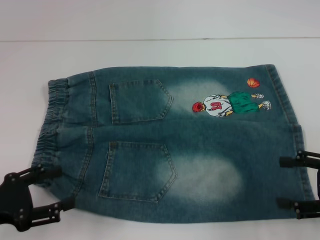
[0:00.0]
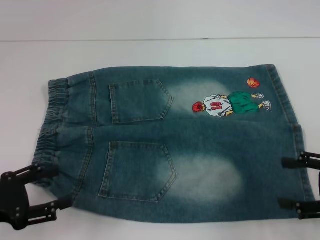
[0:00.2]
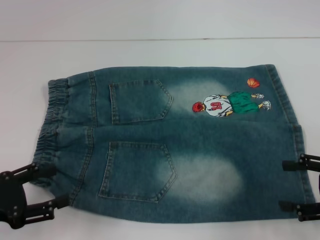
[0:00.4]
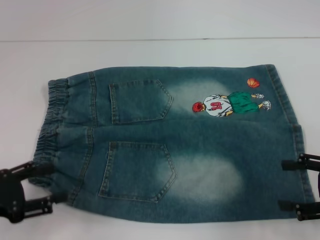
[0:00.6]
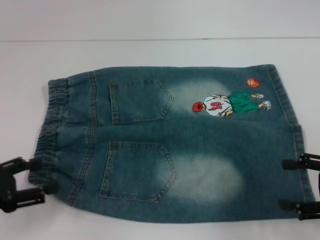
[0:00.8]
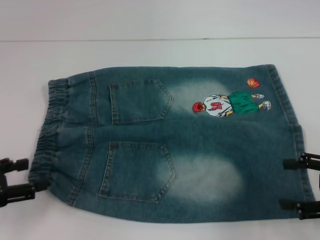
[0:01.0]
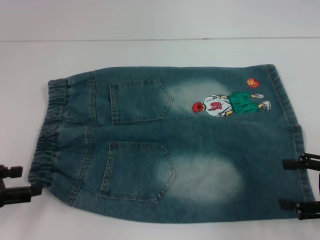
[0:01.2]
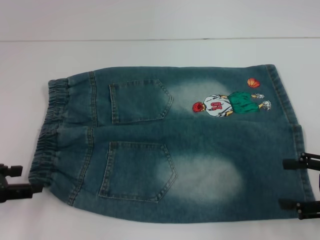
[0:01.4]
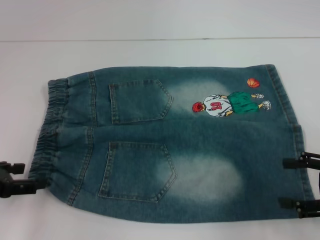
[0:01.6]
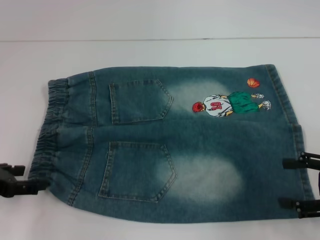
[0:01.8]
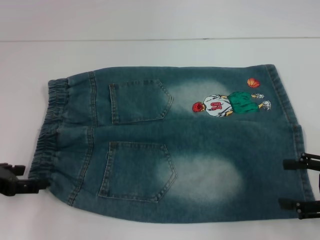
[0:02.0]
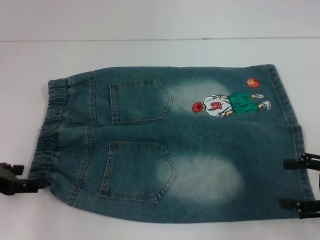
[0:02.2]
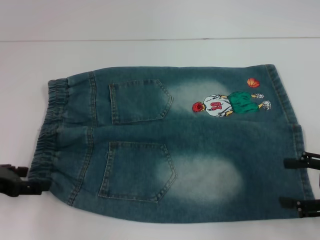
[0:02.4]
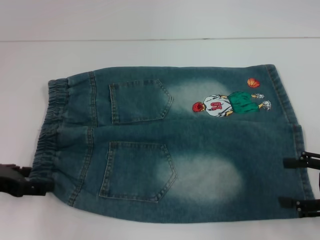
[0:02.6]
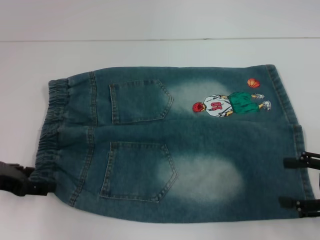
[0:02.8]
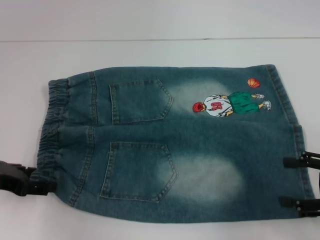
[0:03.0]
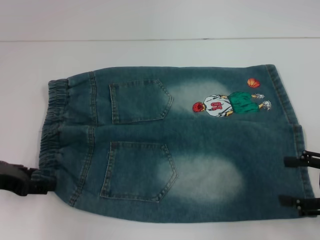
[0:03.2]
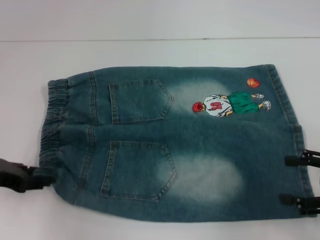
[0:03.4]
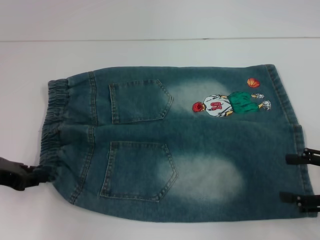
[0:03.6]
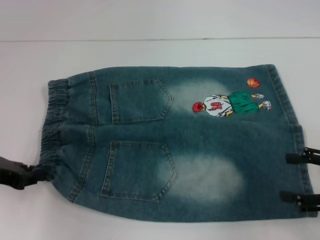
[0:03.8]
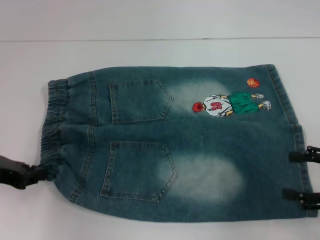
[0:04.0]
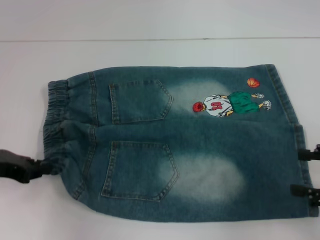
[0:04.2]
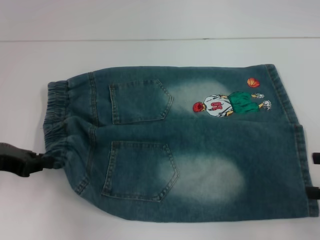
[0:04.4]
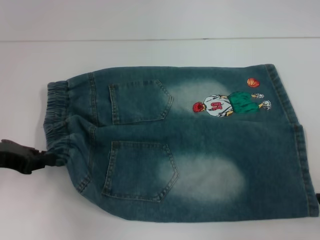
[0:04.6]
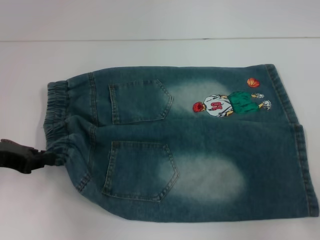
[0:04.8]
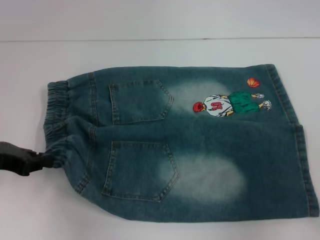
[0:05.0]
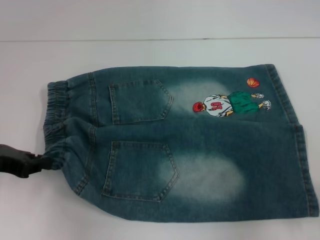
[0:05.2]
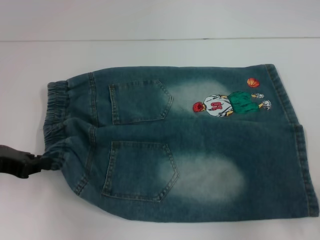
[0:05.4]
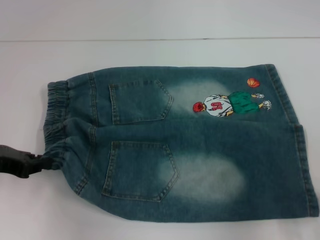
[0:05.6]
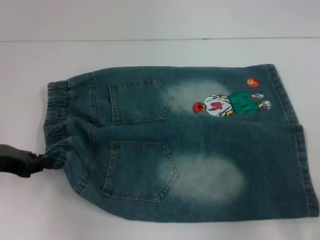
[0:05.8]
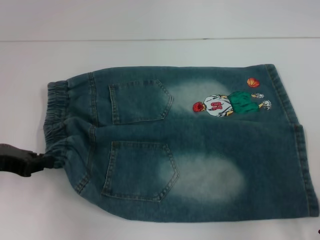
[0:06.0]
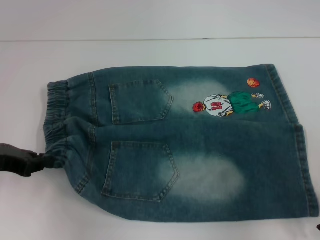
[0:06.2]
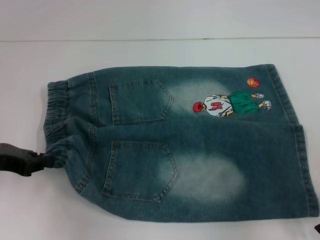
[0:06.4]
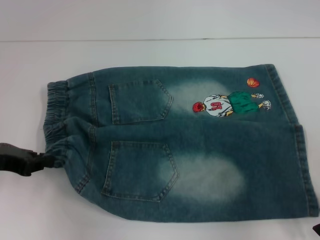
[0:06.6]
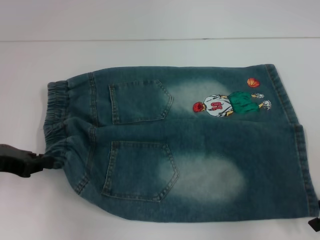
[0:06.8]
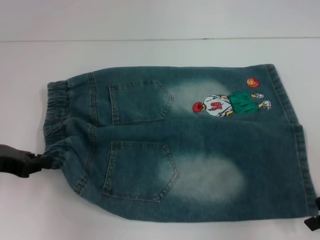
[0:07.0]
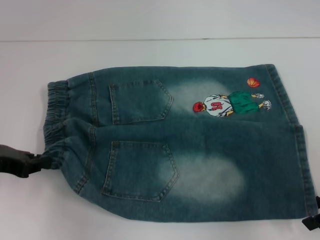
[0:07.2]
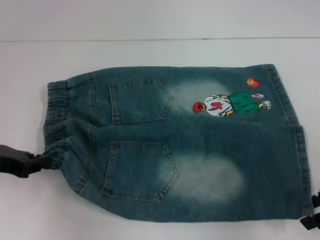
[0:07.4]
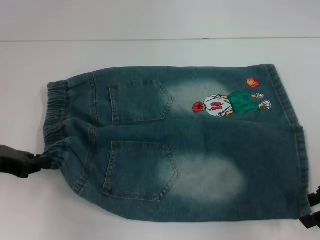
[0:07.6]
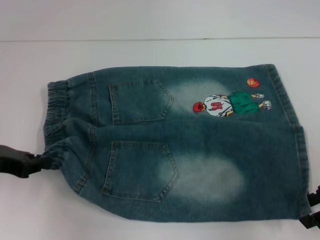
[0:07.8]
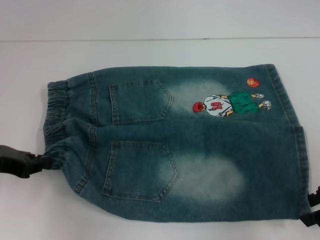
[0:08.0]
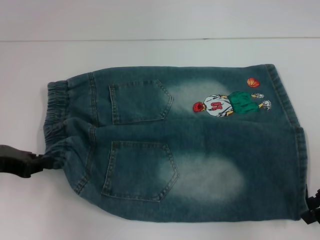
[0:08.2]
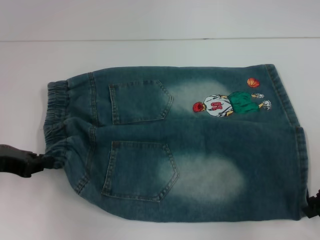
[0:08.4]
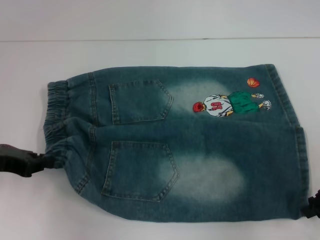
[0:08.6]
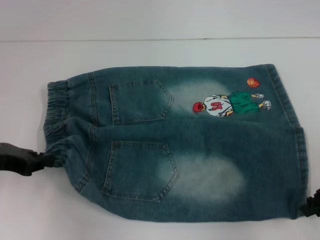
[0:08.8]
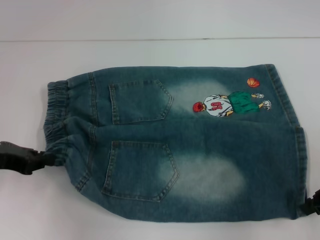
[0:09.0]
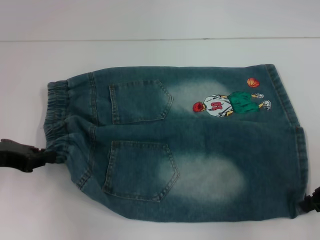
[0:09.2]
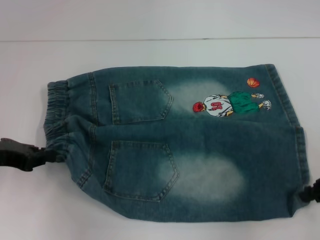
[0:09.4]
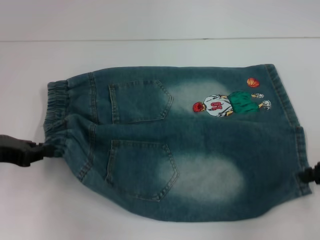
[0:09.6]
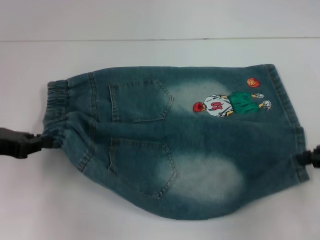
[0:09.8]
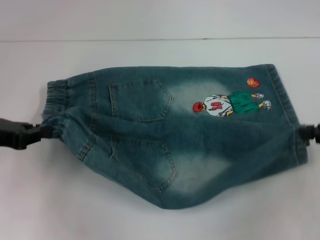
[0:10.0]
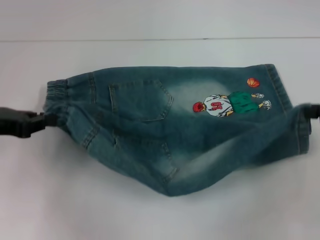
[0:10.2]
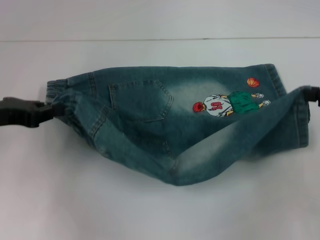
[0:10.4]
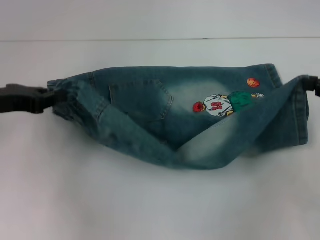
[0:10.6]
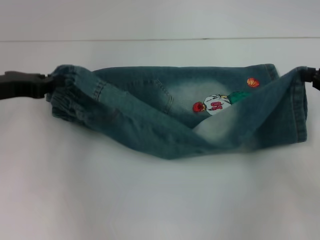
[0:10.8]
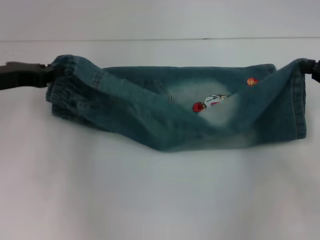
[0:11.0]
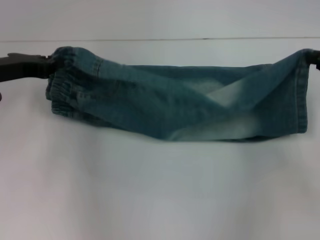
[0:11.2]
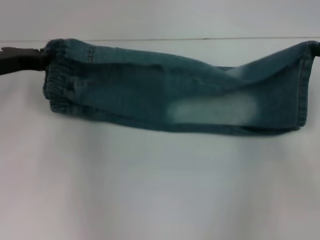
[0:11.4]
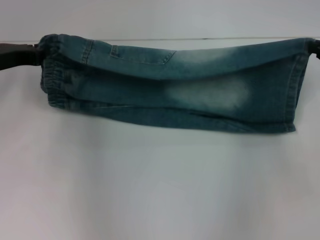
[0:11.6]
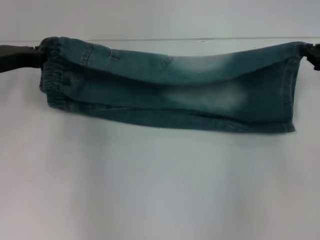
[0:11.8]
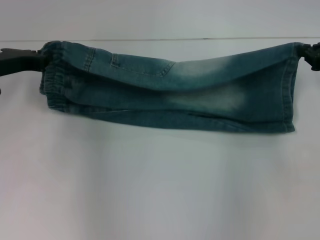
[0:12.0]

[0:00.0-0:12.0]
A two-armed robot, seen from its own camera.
Step, 0:00.0 to 0:03.8: Hold the lower left waistband with your left hand.
Step, 0:04.0 to 0:09.0: Grab the lower right pant leg with your right hand.
0:00.0 to 0:01.6: The left gripper moves roughly 5 cm.
0:01.6 to 0:03.0: The grippers make only small movements.
0:03.0 to 0:04.4: The left gripper closes its fingers.
0:06.0 to 0:07.6: The grippers make only small movements.
0:07.6 to 0:09.0: The right gripper closes its fingers.
0:09.0 to 0:10.4: The right gripper moves upward, roughly 5 cm.
0:10.4 to 0:12.0: The two grippers go roughly 10 cm forward.

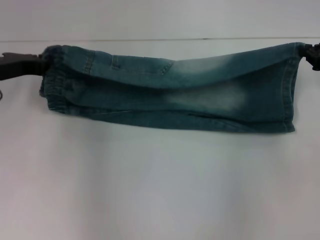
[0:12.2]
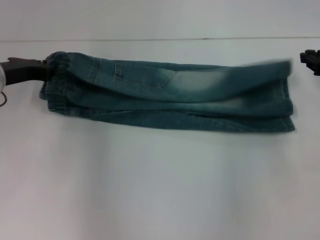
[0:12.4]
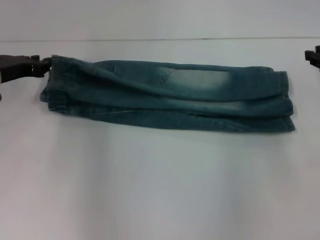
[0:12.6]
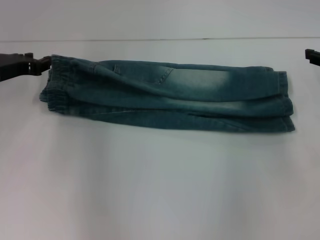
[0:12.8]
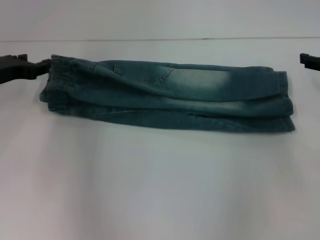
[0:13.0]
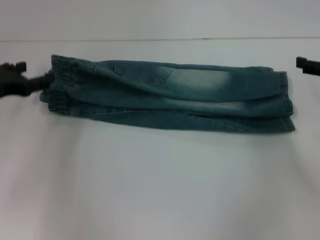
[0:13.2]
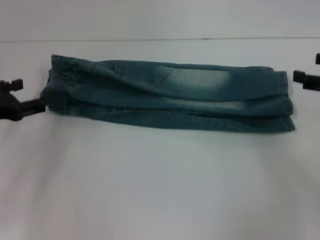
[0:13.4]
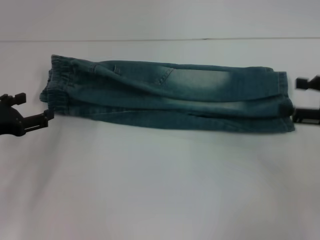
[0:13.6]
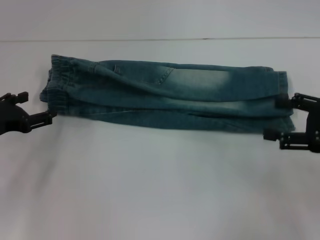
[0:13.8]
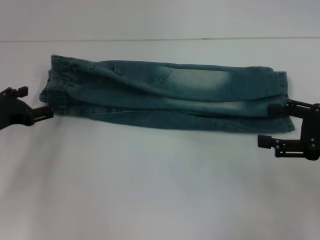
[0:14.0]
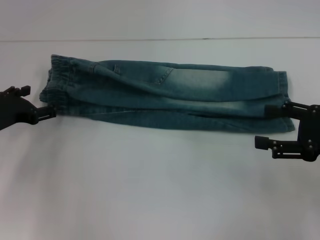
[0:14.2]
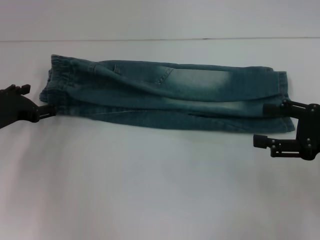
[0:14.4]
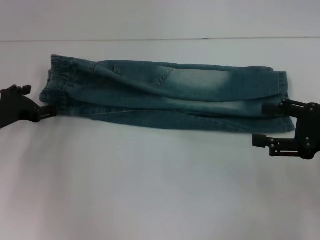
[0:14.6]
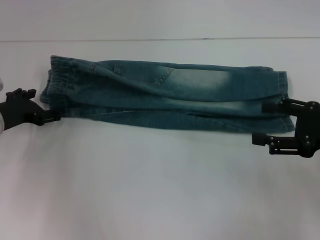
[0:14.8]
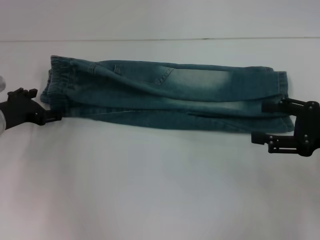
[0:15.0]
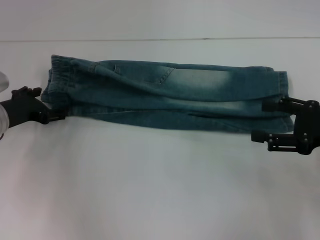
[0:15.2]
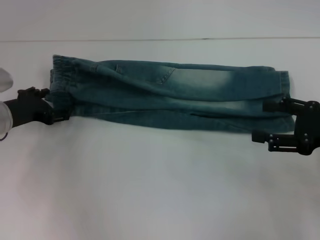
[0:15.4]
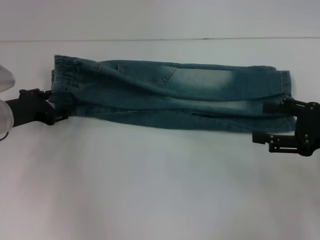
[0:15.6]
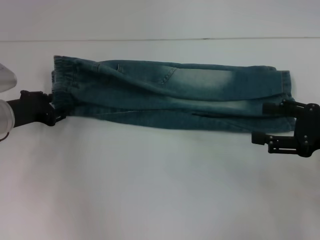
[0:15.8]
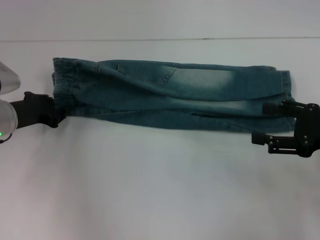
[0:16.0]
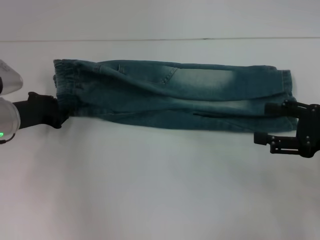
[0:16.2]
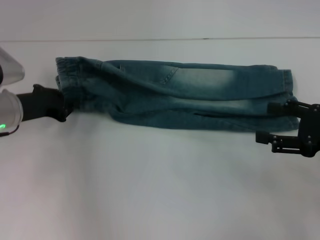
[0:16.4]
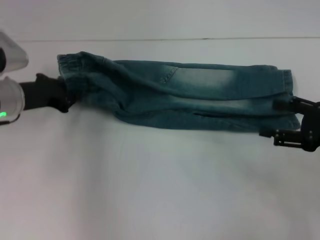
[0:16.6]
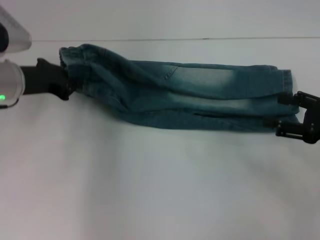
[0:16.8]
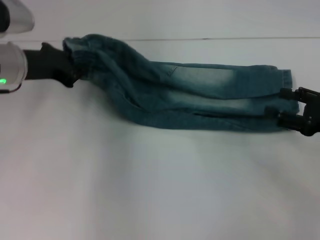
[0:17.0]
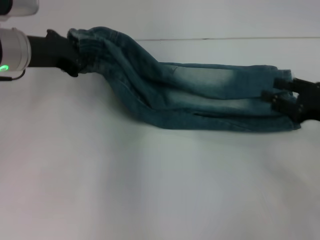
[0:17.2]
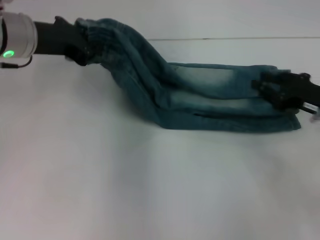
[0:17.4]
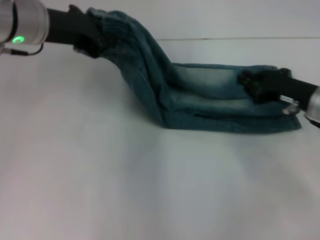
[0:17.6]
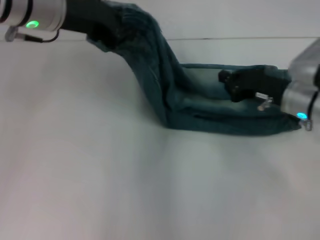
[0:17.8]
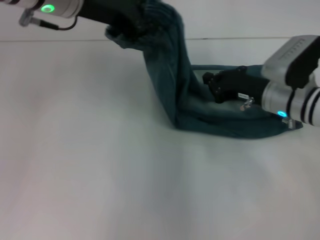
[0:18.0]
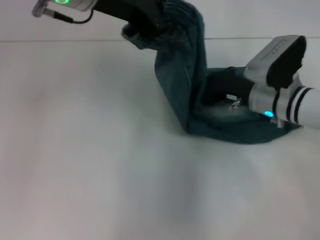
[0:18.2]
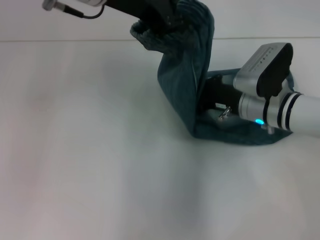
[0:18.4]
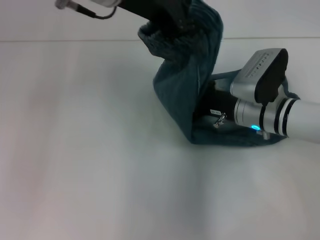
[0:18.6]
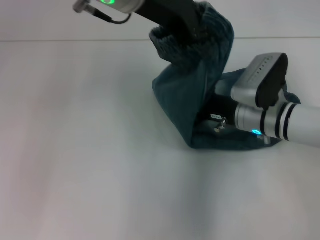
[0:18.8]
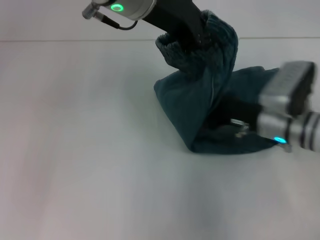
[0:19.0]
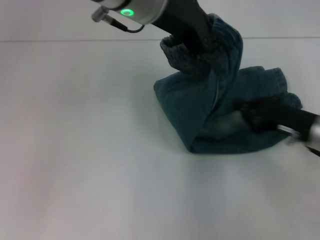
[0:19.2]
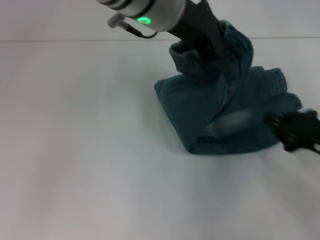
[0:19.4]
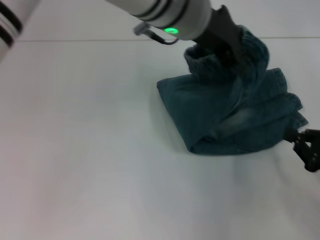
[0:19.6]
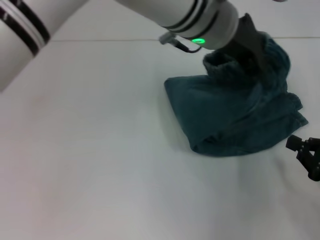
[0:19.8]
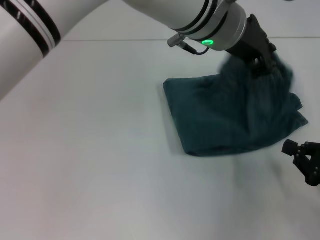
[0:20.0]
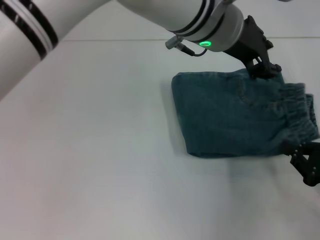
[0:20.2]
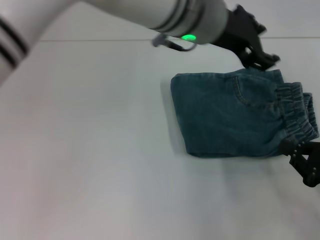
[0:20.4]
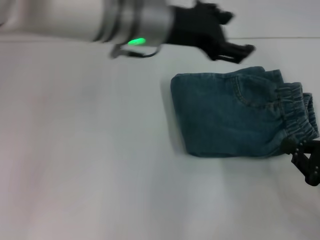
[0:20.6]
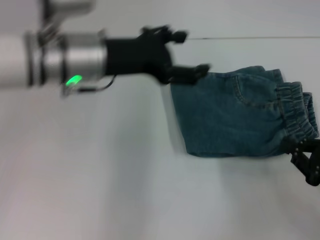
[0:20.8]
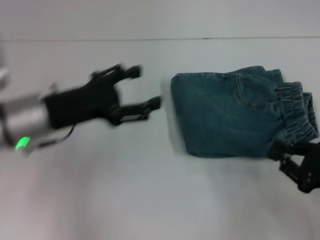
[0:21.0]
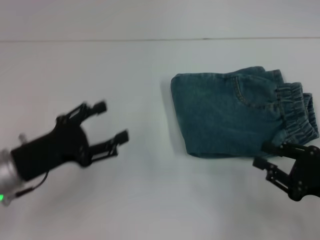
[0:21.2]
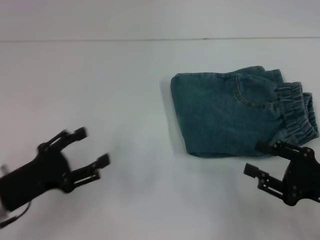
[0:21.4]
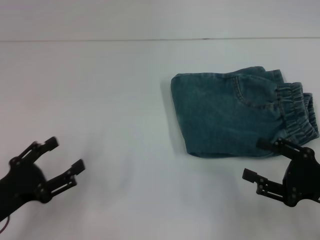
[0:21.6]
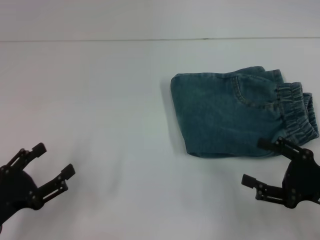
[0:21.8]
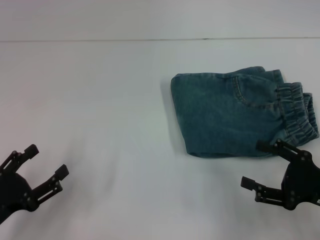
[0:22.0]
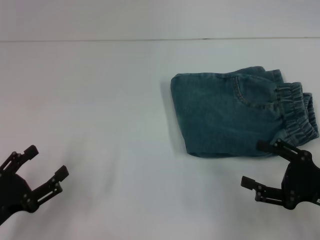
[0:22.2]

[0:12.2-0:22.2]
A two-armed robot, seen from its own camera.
Step, 0:12.6 to 0:16.0: Hold the waistband with your left hand.
Step, 0:16.2 to 0:18.8: Press the middle of the pants with your right hand.
Step, 0:19.0 to 0:20.0: Fold to the right with your left hand.
0:12.2 to 0:13.6: Both grippers travel together backward, roughly 10 cm. The left gripper opens up. Meanwhile the right gripper opens its fingers.
0:13.6 to 0:15.0: The left gripper travels forward by some 5 cm.
0:15.0 to 0:16.4: The left gripper closes up.
0:16.4 to 0:18.0: The left gripper travels upward and to the right by some 25 cm, while the right gripper shifts approximately 15 cm forward and to the left, and closes its fingers.
0:18.0 to 0:19.4: The left gripper is displaced to the right by roughly 10 cm; the right gripper moves backward and to the right, approximately 15 cm.
0:19.4 to 0:20.8: The left gripper goes roughly 15 cm to the left and downward, and opens, while the right gripper goes approximately 5 cm backward.
0:20.8 to 0:22.2: The right gripper opens up. The left gripper heads backward, downward and to the left, covering approximately 30 cm.
